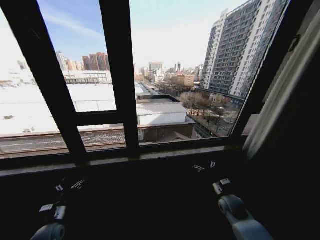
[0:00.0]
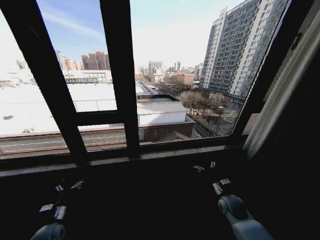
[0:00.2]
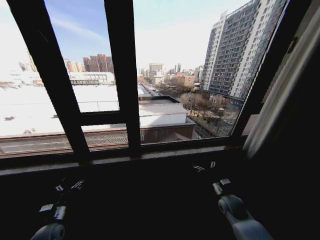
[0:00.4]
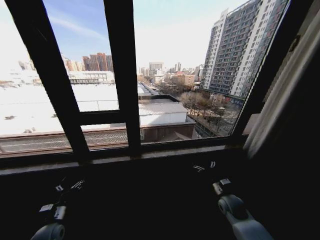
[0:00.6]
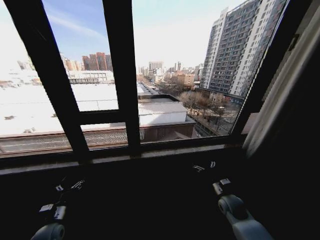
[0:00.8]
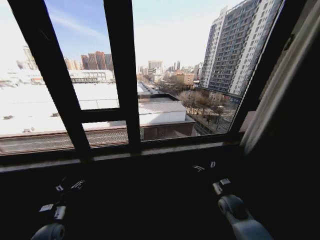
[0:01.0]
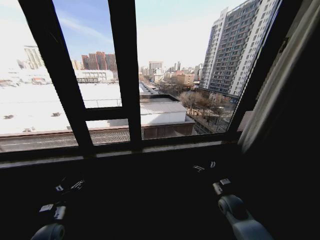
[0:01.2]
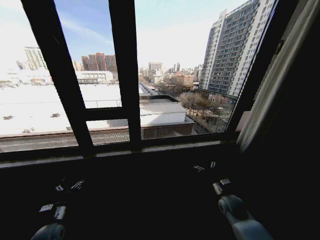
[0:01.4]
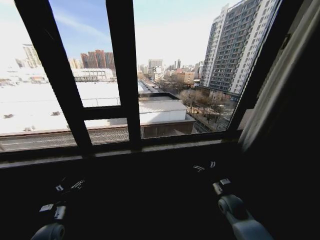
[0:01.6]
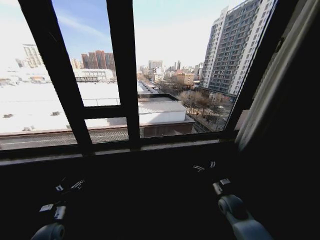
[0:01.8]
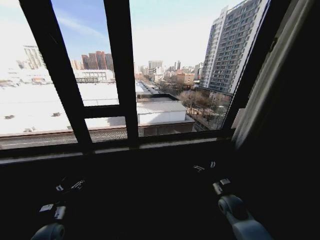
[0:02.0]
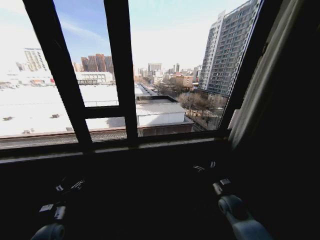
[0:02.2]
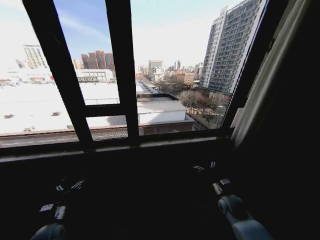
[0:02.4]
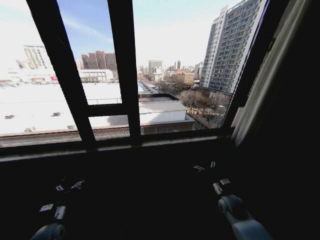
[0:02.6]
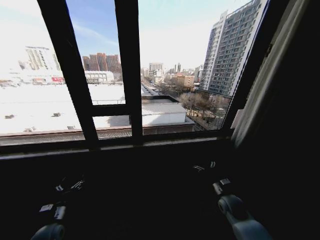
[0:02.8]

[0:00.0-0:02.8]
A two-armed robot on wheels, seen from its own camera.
Task of the whole recording: Open the curtains by pulling them apart, changing their state from closed to fully open.
0:01.4 to 0:02.8: Both grippers stay about where they are.
